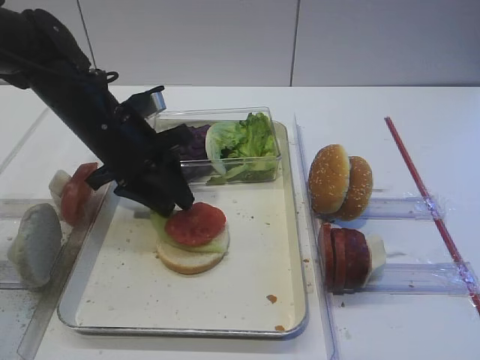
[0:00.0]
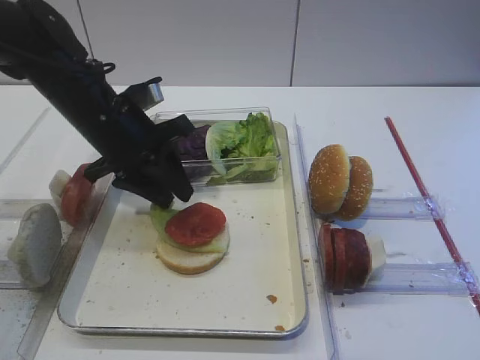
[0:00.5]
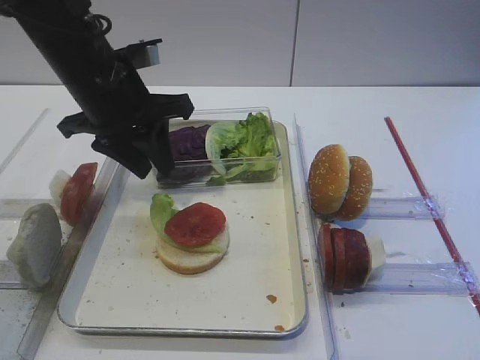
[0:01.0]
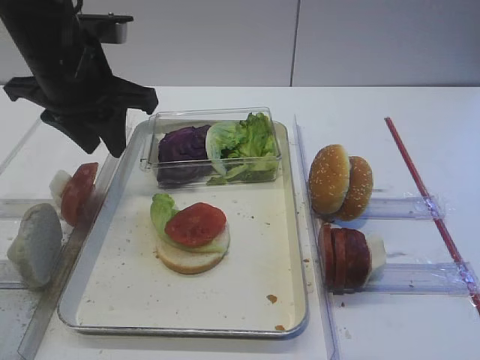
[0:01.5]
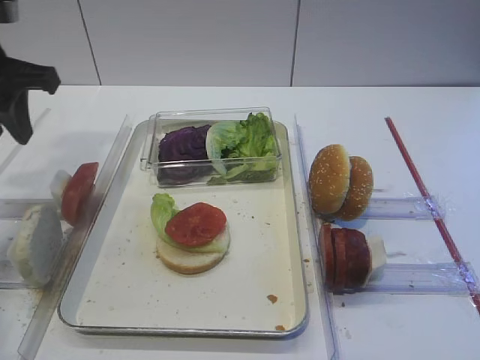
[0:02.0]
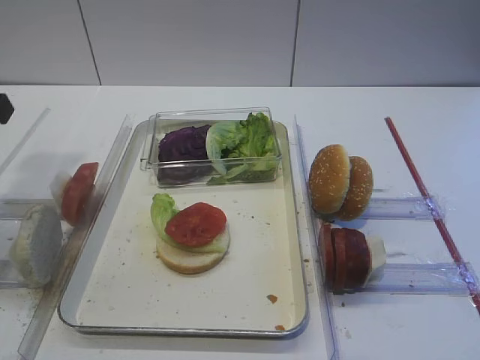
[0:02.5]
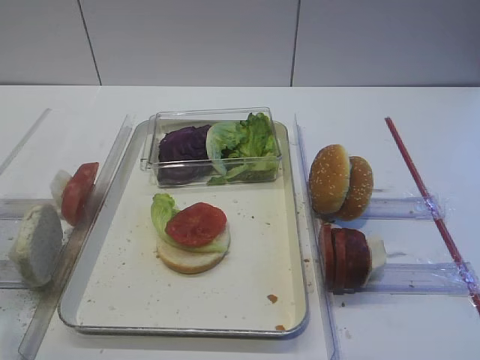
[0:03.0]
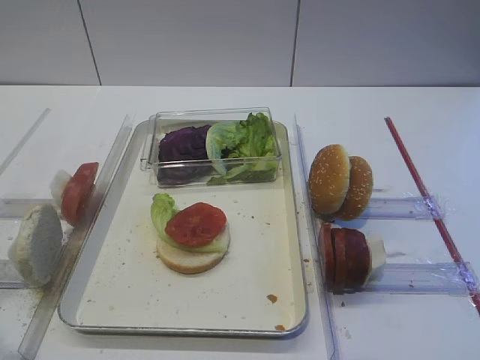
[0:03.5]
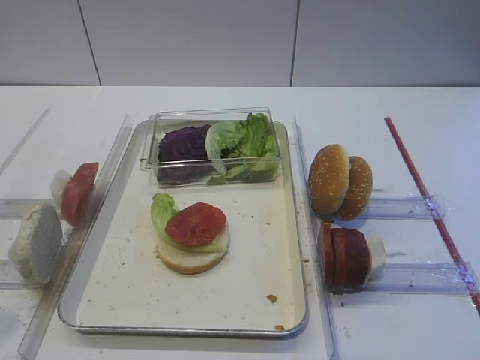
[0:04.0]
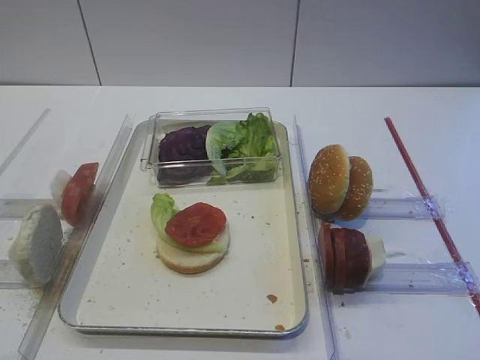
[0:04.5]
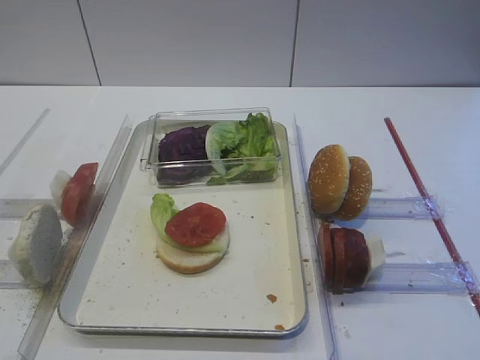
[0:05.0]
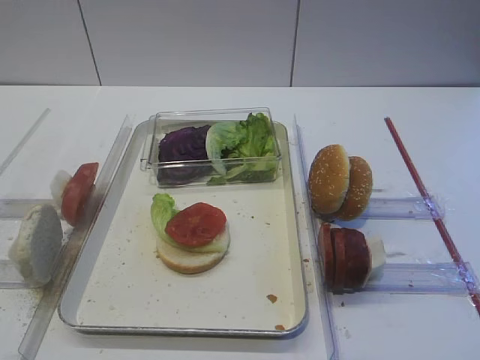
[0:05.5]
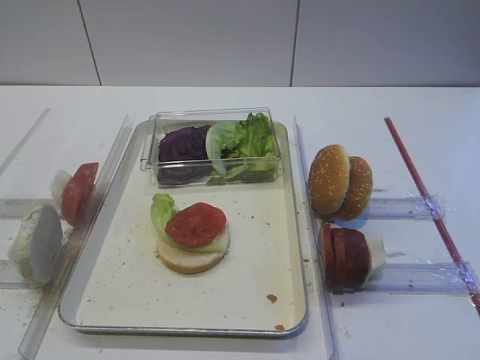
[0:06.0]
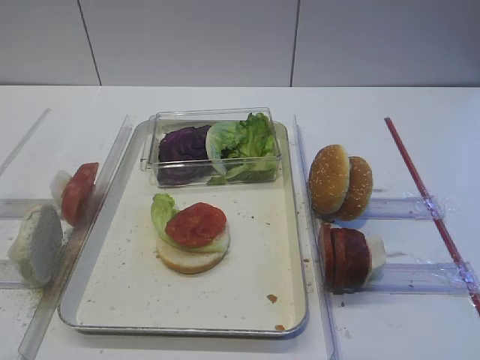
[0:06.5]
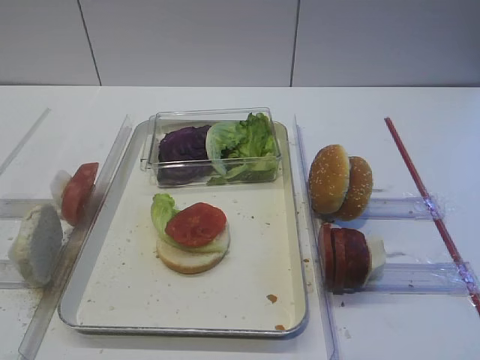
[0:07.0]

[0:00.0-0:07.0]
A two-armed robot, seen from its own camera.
0:00.0 to 0:02.0: The left gripper shifts approximately 15 cm upward and to the left.
0:02.0 to 0:03.5: The left gripper is displaced backward by roughly 25 cm.
0:05.0 to 0:07.0: The two grippers keep their place.

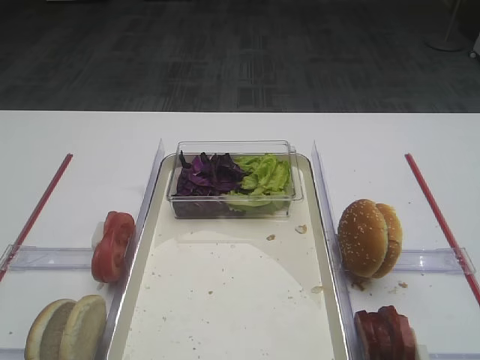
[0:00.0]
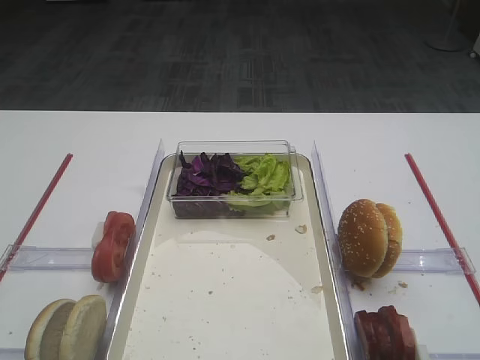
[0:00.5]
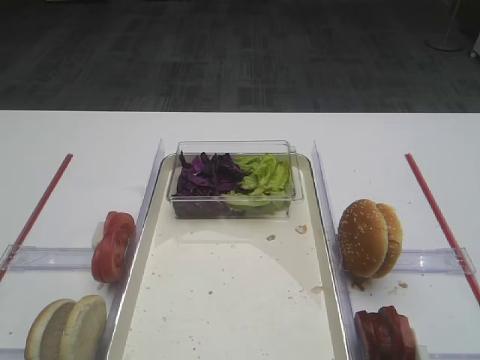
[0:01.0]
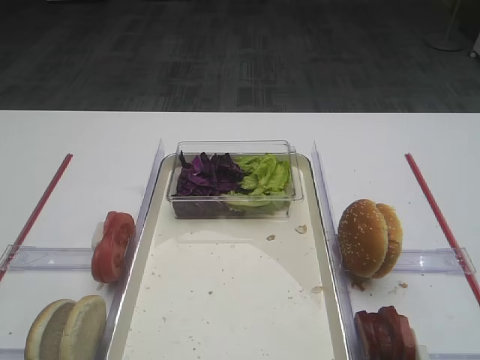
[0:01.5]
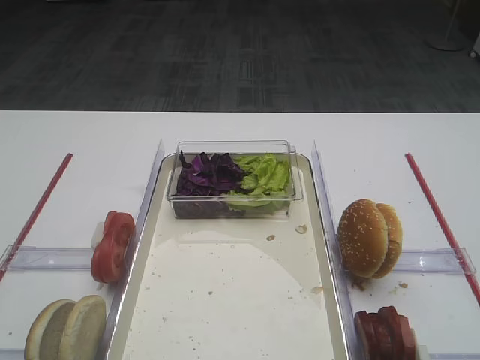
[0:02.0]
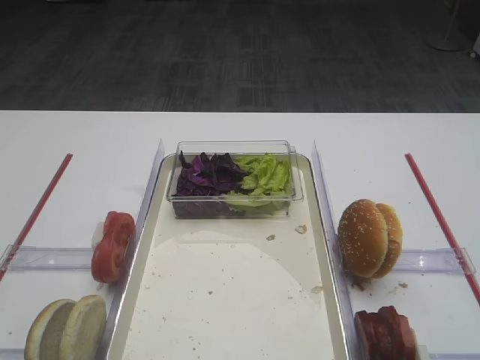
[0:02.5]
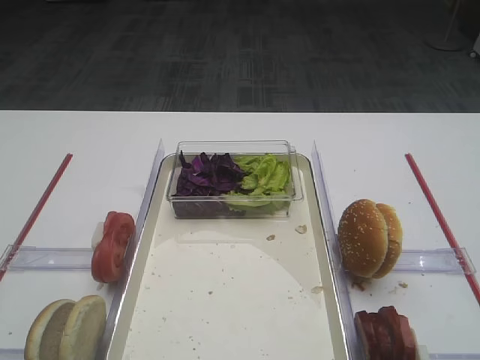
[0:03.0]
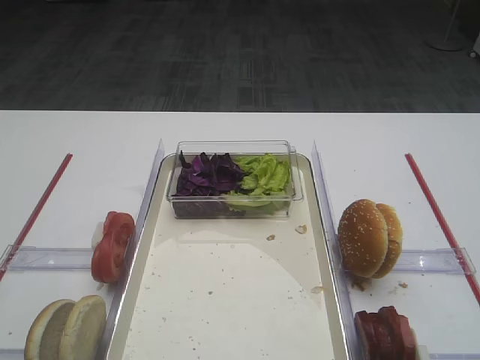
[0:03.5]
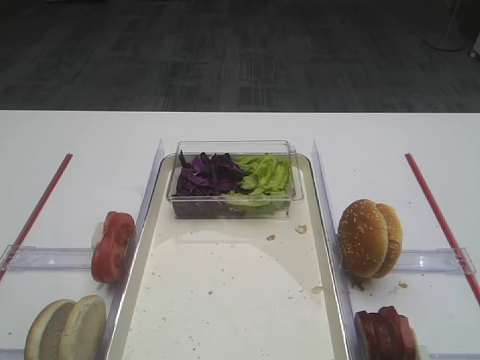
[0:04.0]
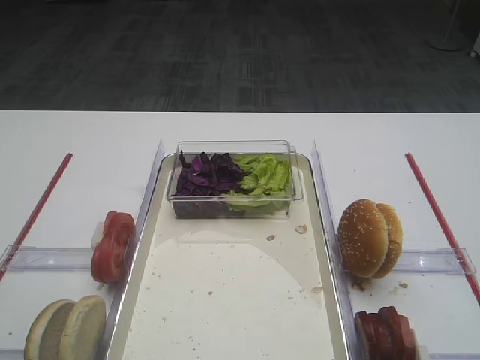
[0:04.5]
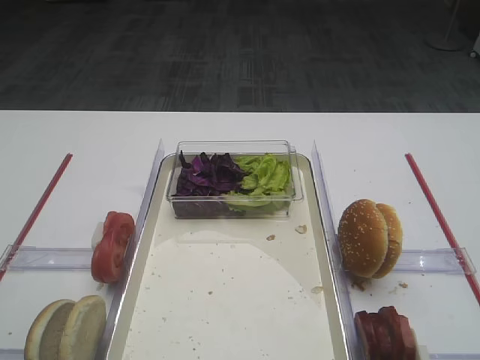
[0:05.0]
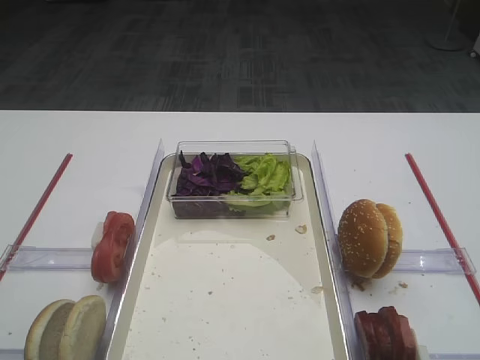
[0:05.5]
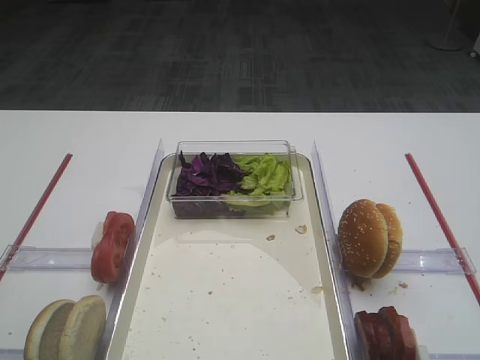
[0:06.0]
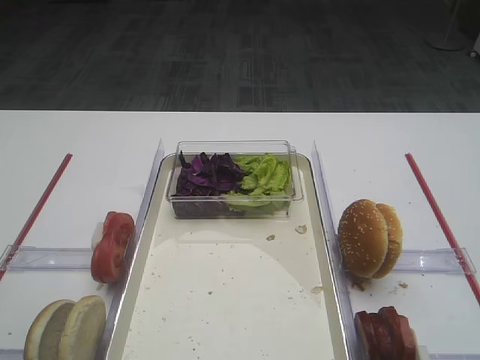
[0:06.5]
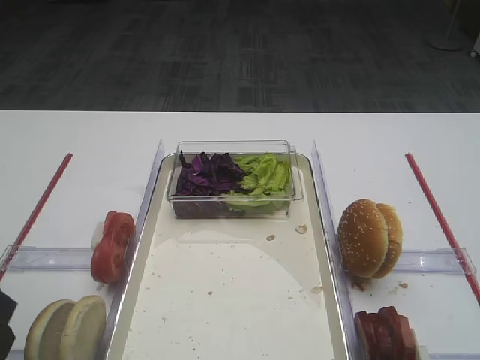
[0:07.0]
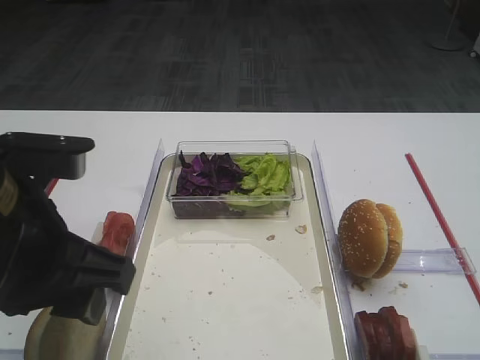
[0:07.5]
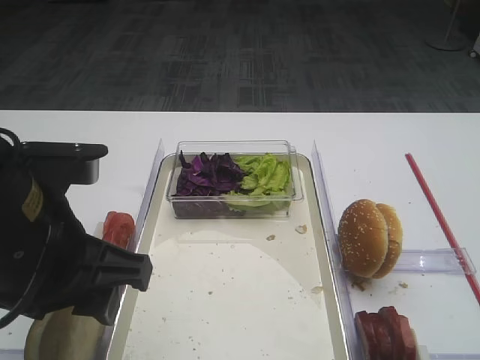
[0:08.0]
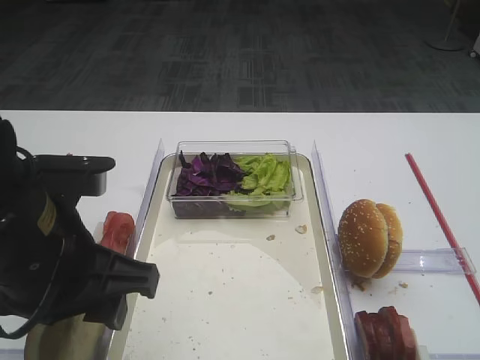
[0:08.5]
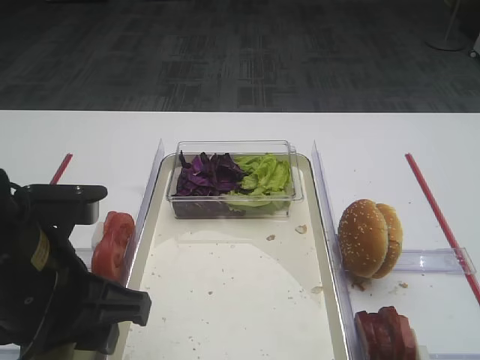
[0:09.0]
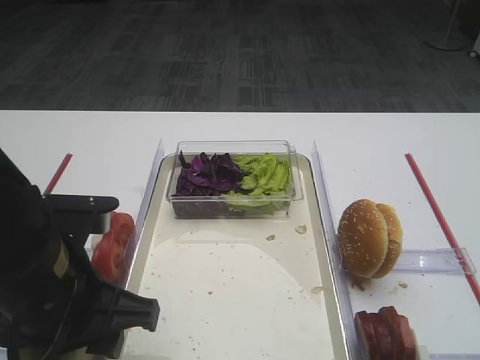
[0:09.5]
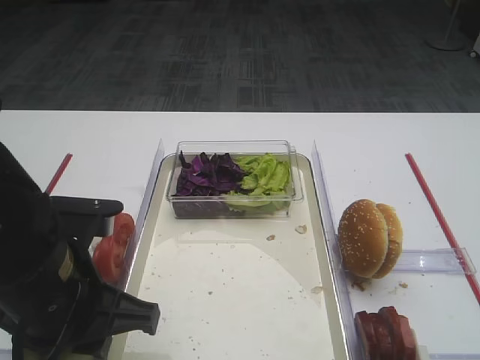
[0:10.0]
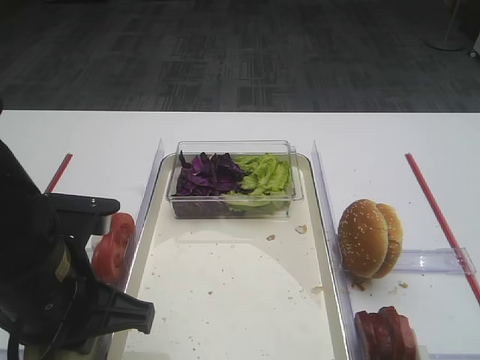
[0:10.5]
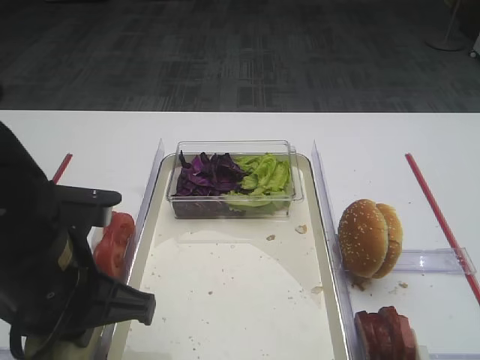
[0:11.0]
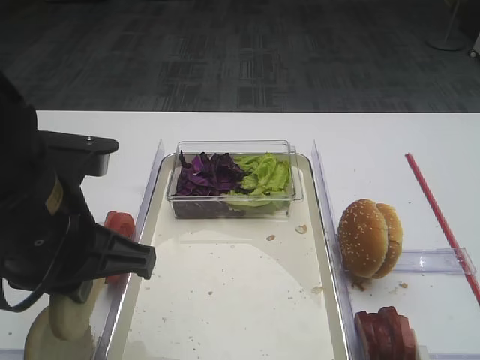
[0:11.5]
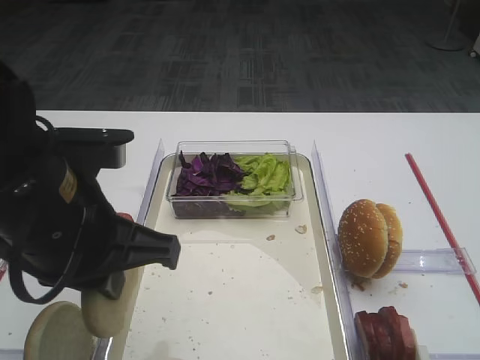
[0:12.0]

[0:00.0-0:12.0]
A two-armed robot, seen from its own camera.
Step, 0:00.0 to 0:11.0: Pick up the bread slice with the left gripper.
0:06.0 to 0:08.0: The left gripper goes some 15 cm to the right and forward.
0:08.0 to 0:10.0: The left gripper shifts about 5 cm downward.
0:10.0 to 0:12.0: The left gripper heads upward, covering some 5 cm, and closes its fingers.

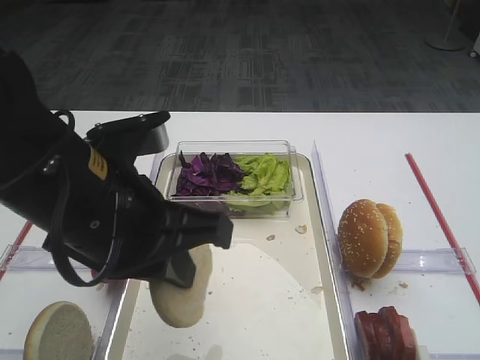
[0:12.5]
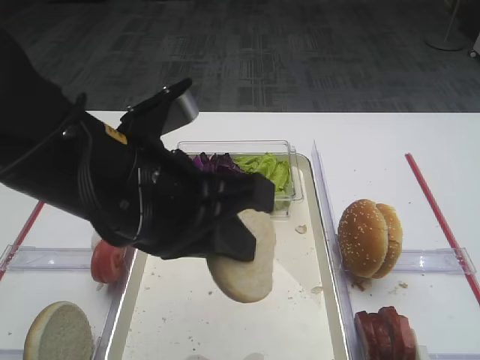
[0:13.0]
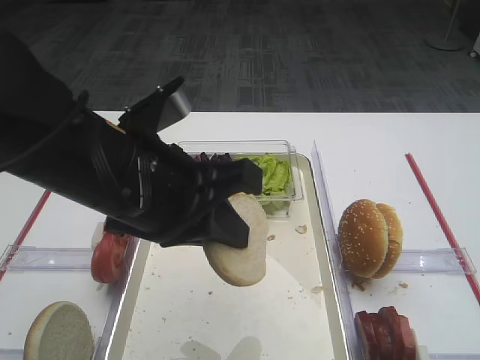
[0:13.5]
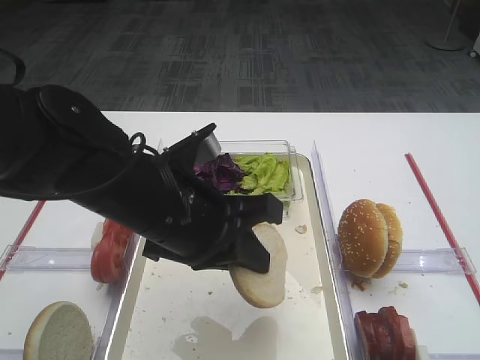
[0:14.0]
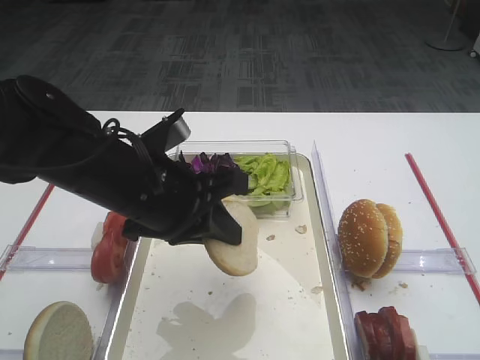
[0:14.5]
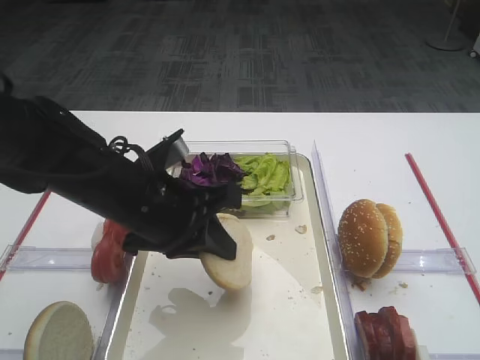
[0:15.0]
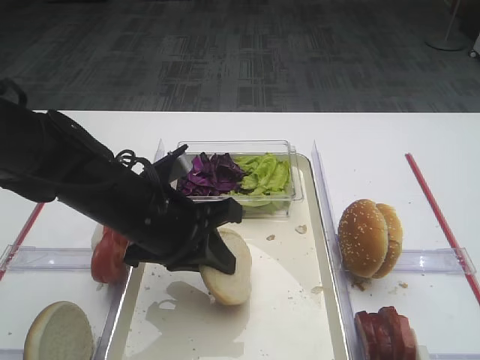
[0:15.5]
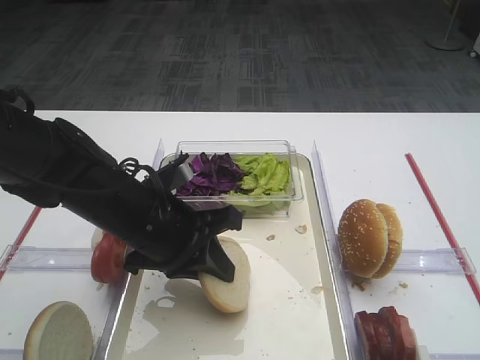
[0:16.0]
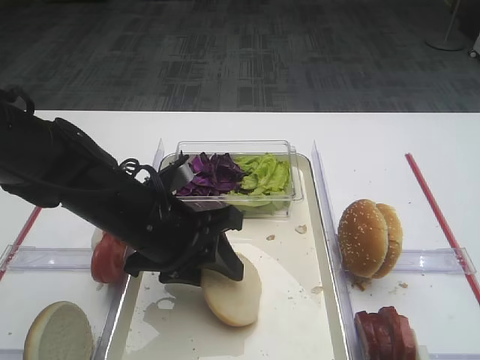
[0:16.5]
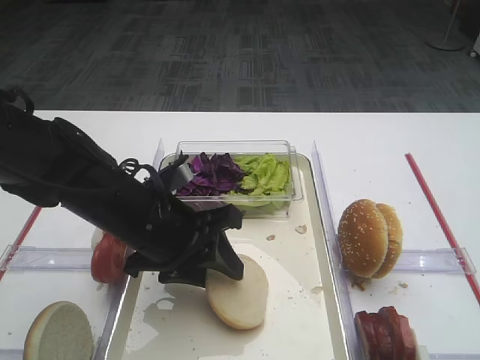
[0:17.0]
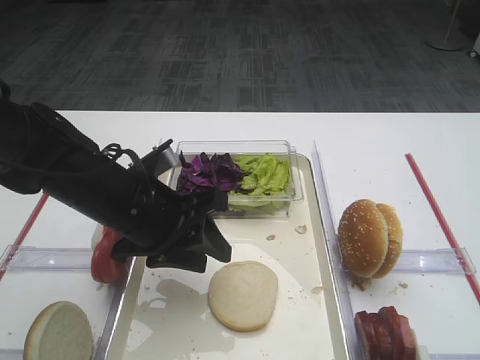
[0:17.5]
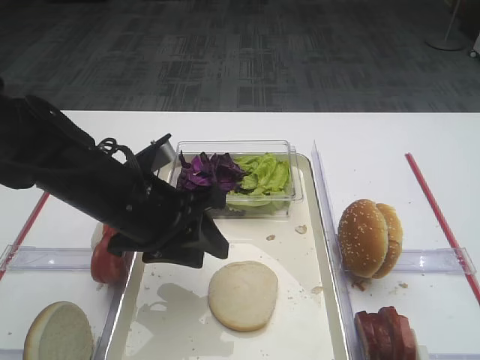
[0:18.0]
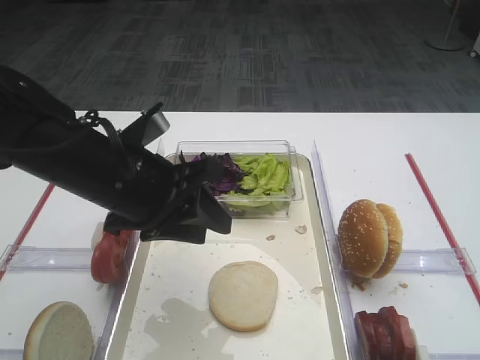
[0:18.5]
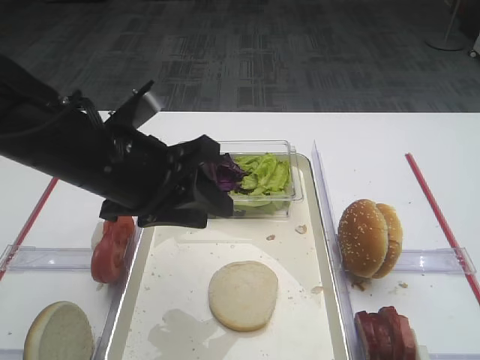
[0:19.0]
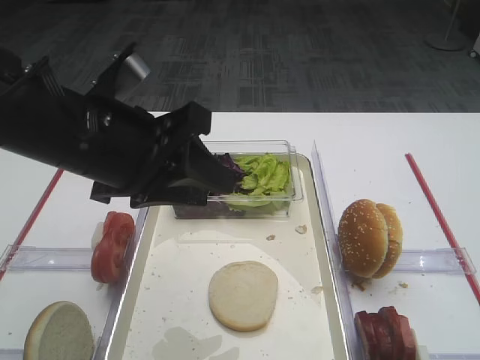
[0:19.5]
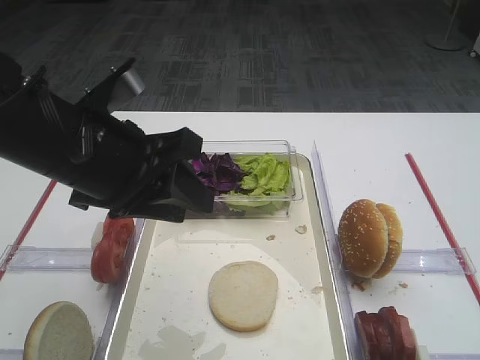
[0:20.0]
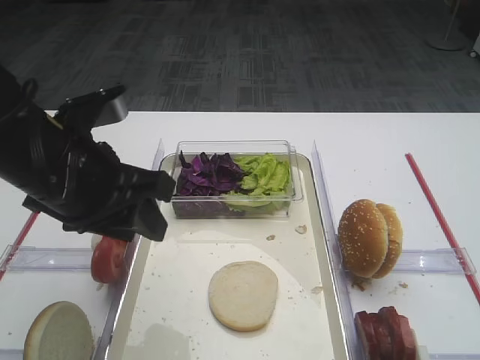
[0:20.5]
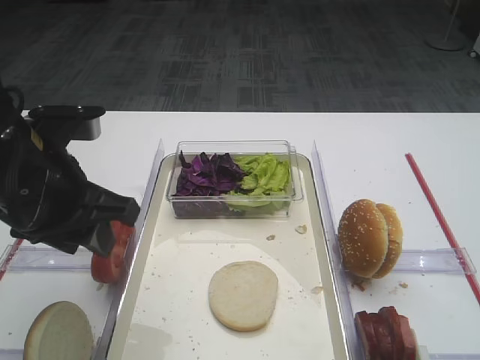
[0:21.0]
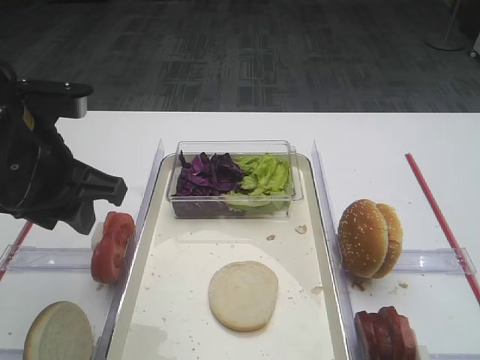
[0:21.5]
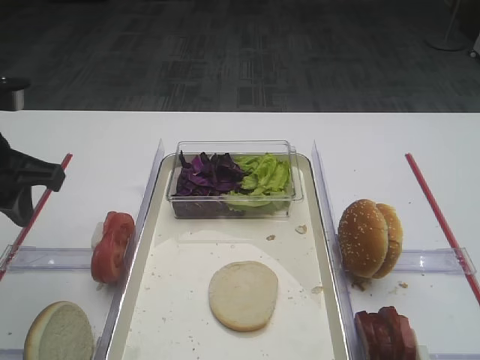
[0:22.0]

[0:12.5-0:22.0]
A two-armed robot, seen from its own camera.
Step, 0:12.5 to 0:19.0: Place the bread slice on the tray with the left gripper.
0:12.5 to 0:14.5: The left gripper goes roughly 10 cm forward and downward.
0:14.5 to 0:16.5: The left gripper is displaced downward by about 5 cm, and opens up.
0:16.5 to 0:18.0: There are only small adjustments of the grippers.
0:18.0 to 0:20.0: The left gripper heads upward, covering some 10 cm.
0:20.0 to 0:22.0: The left gripper heads to the left, covering about 10 cm.
